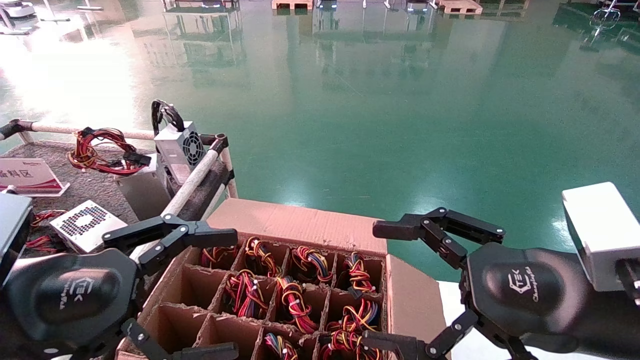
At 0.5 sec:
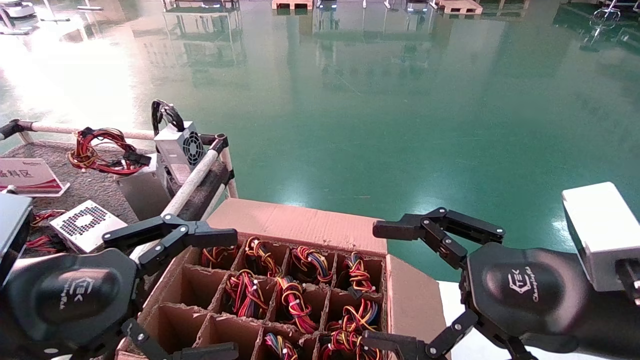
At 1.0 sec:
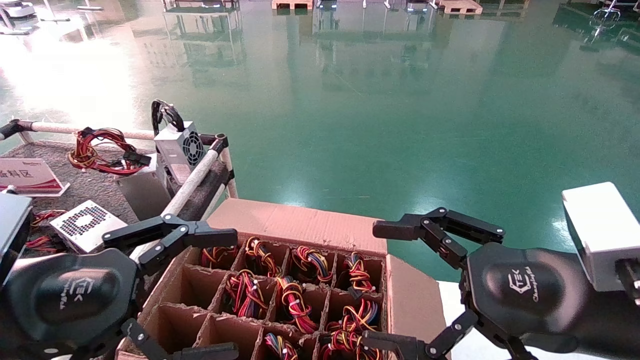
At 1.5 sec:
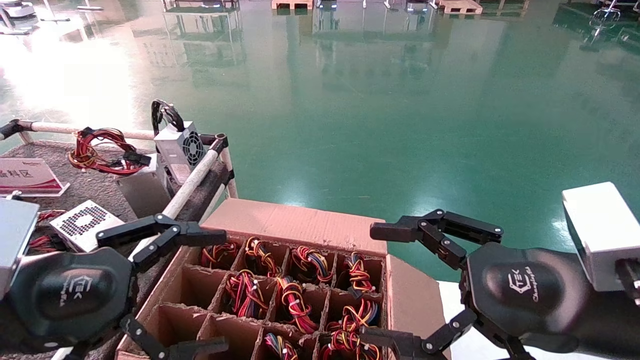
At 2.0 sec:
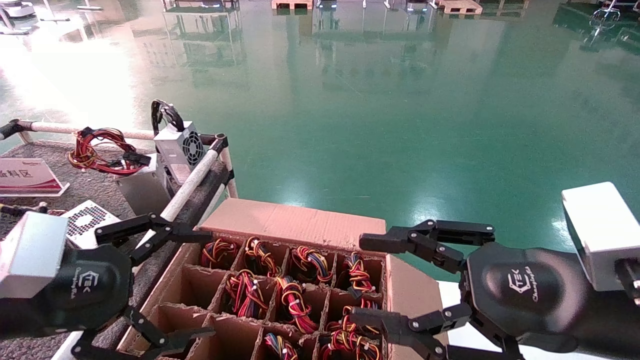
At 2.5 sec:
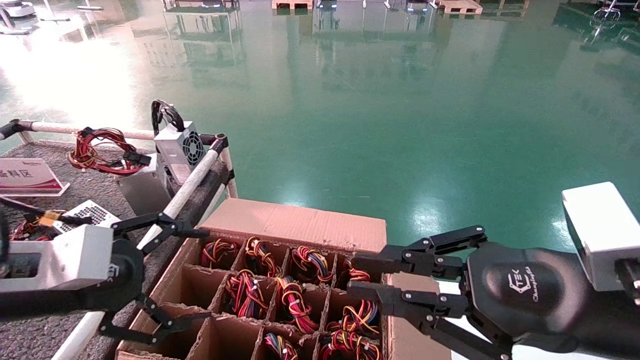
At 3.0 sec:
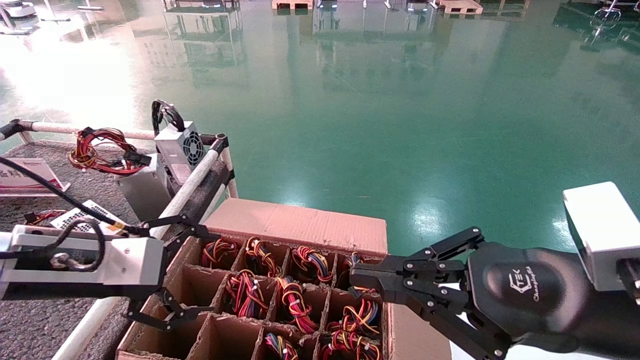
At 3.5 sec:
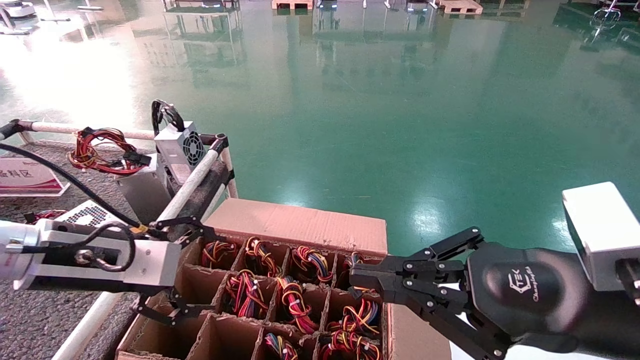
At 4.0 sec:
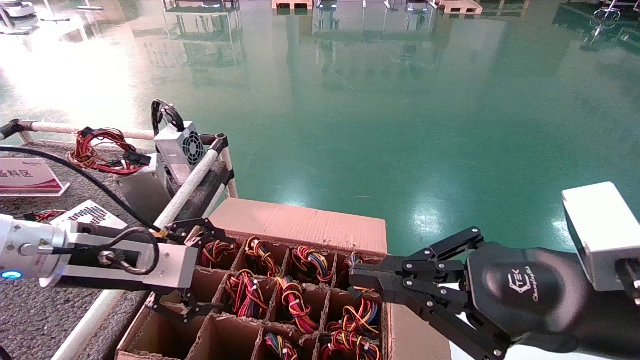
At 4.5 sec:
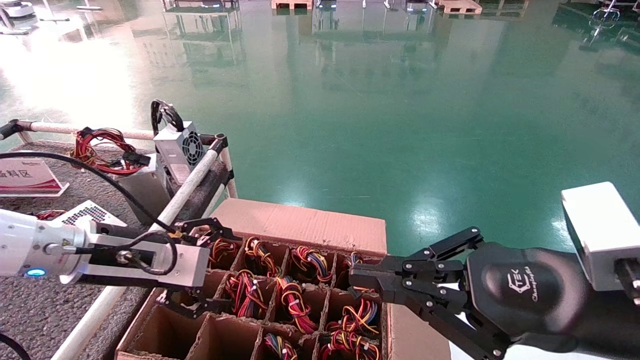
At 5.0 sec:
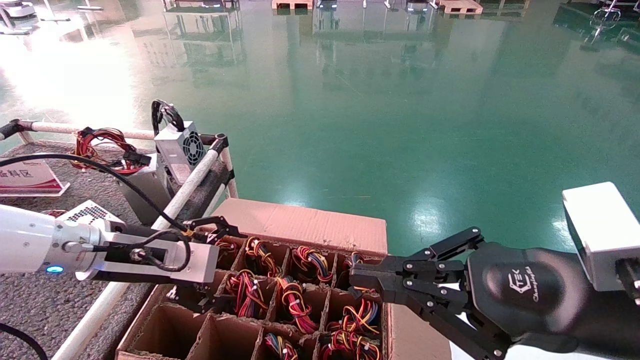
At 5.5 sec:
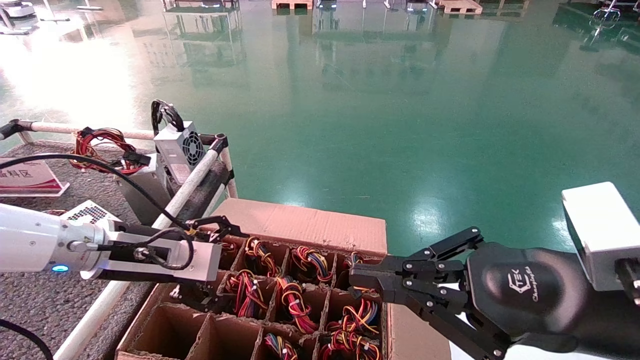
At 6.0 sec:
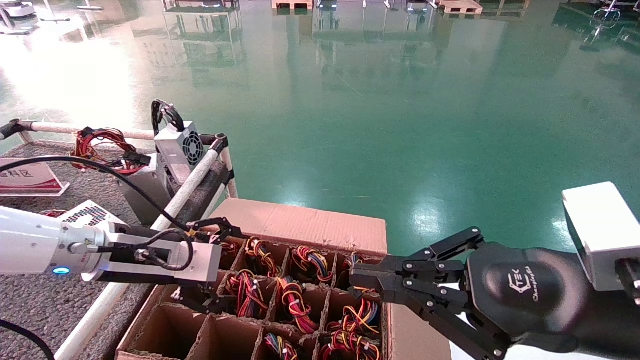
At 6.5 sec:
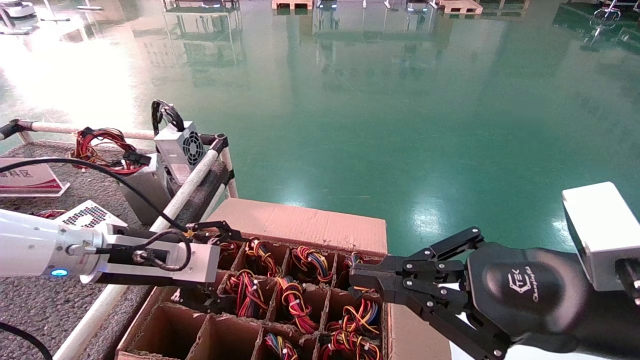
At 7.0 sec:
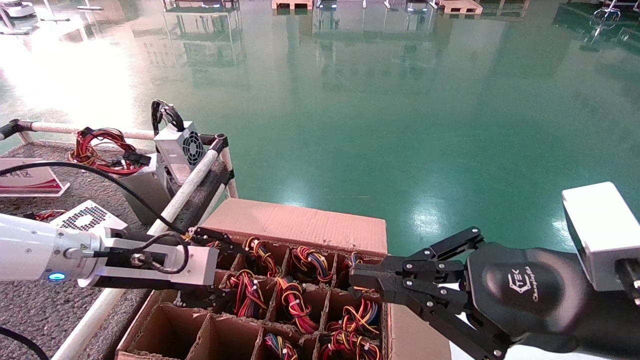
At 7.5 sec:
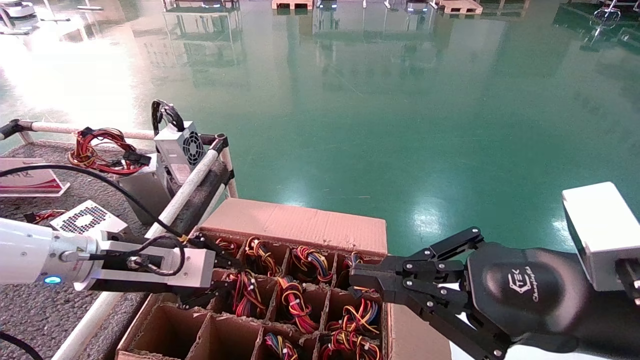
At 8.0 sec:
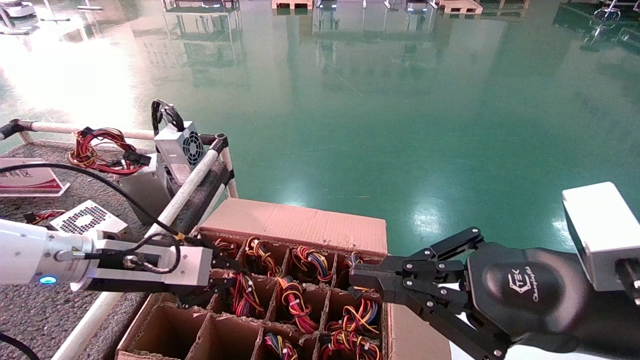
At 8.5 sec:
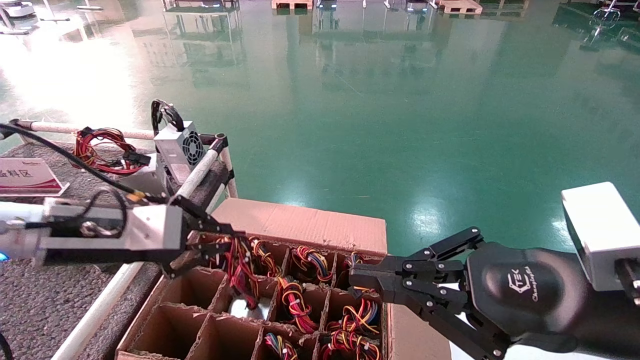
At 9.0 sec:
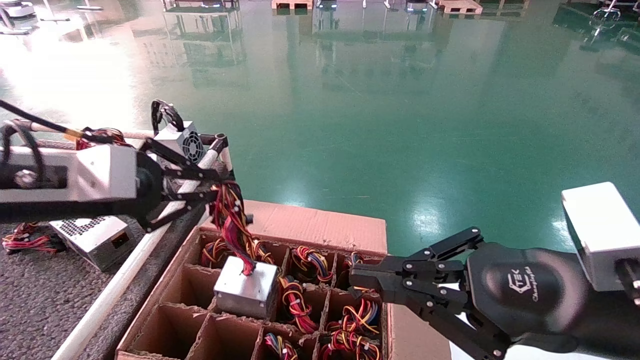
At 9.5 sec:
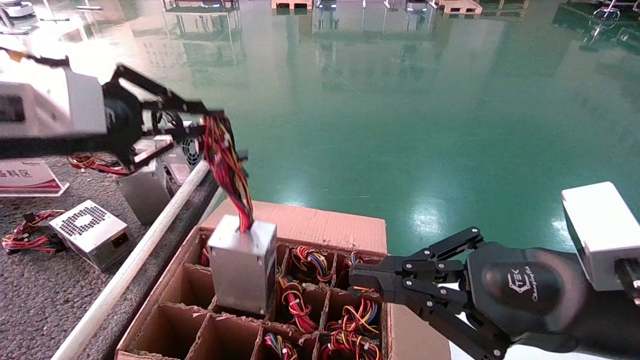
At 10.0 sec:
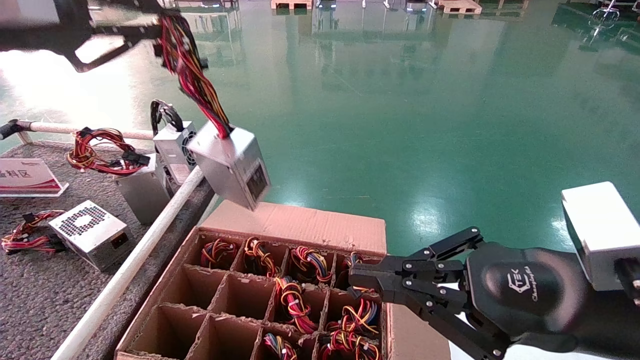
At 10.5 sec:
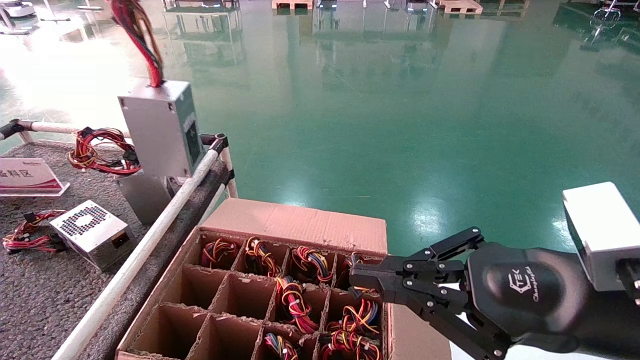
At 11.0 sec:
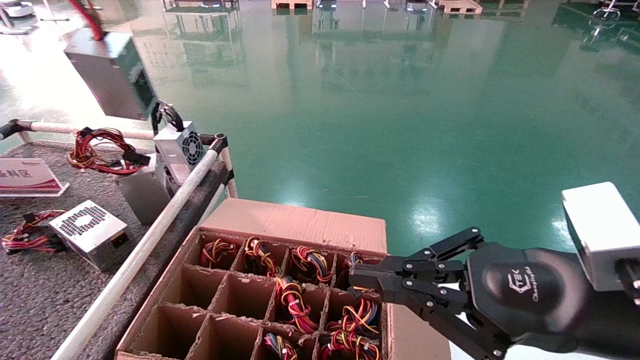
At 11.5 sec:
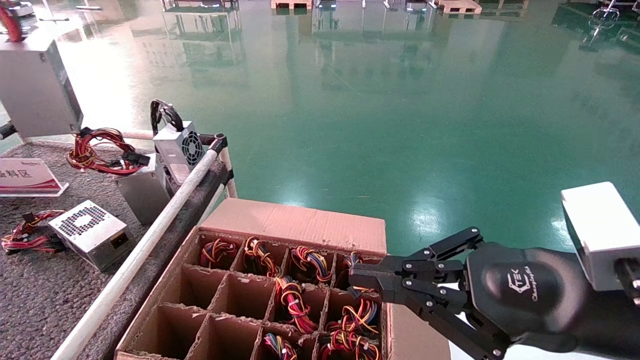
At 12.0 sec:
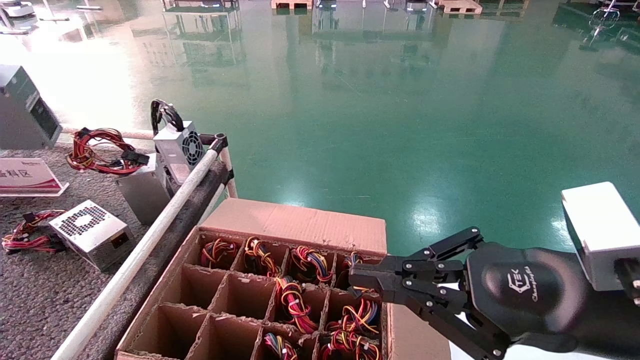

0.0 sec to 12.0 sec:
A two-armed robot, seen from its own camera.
Step, 2.0 sec to 7.5 sec: Grab and lift the power supply from the large box.
0.0 sec to 2.0 sec: The grippers make only small movements.
2.0 sec to 4.0 sec: The left gripper shifts roughly 10 cm forward, while the right gripper closes.
4.0 sec to 6.0 sec: There are only small adjustments of the grippers.
6.0 sec to 8.0 sec: The left gripper closes.
8.0 sec to 10.0 sec: The left gripper goes approximately 25 cm upward.
10.0 sec to 12.0 sec: The left gripper heads to the left, covering roughly 20 cm.

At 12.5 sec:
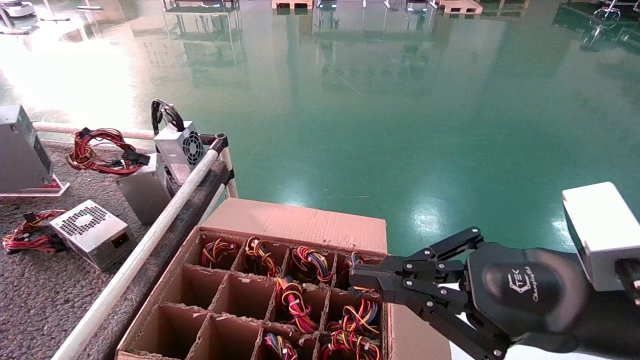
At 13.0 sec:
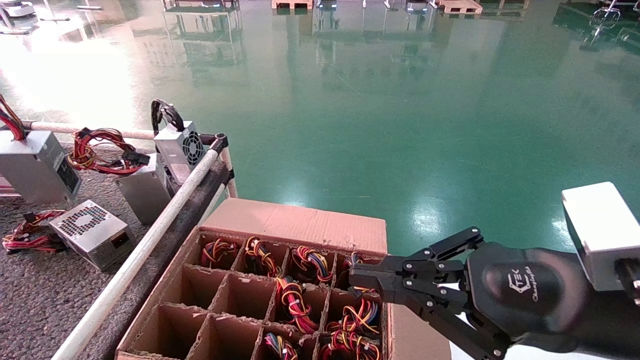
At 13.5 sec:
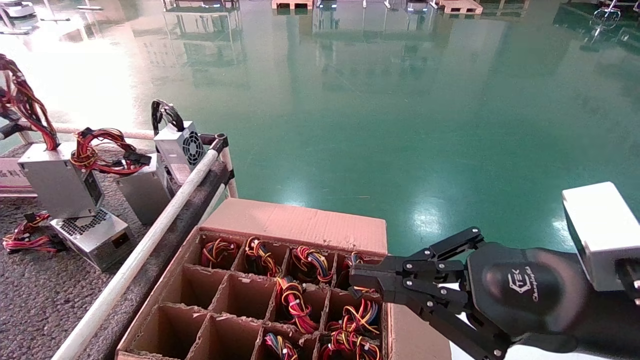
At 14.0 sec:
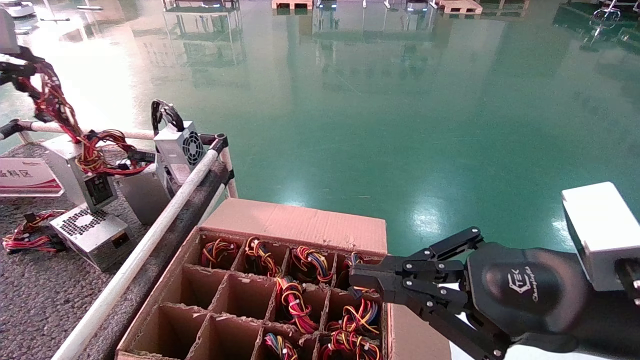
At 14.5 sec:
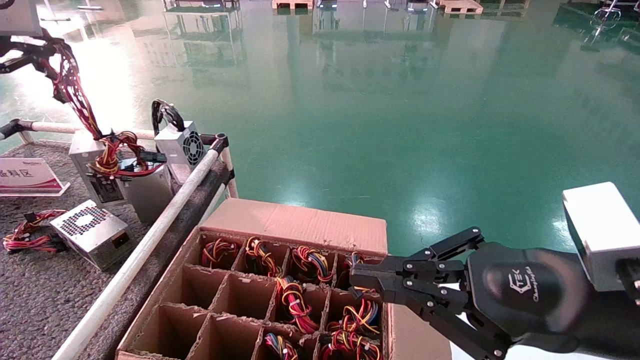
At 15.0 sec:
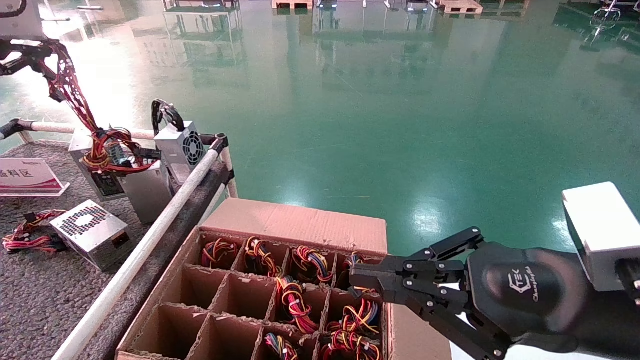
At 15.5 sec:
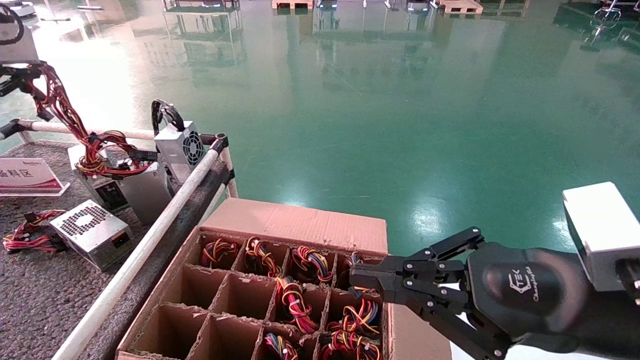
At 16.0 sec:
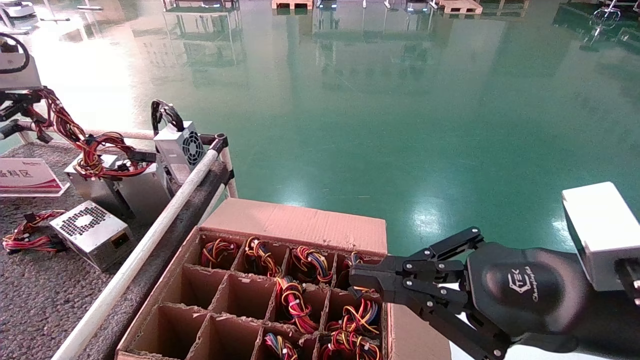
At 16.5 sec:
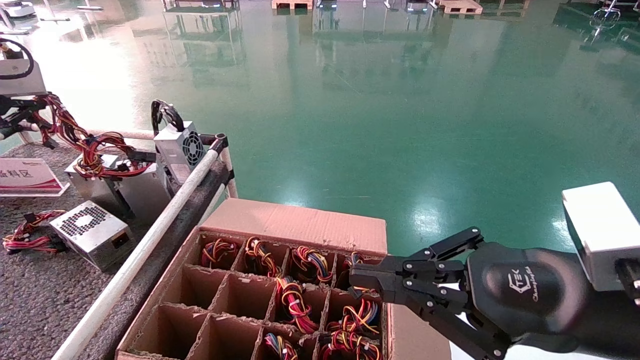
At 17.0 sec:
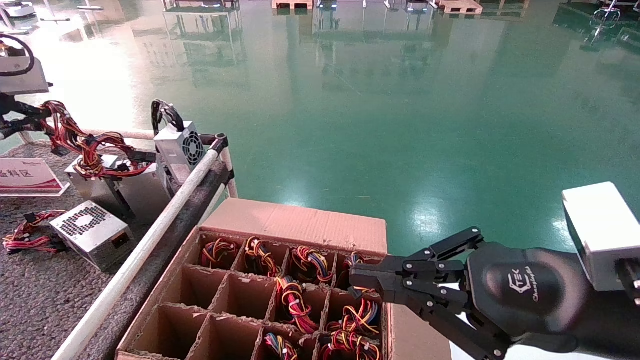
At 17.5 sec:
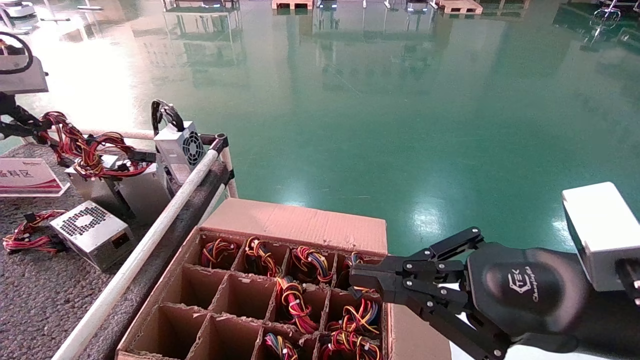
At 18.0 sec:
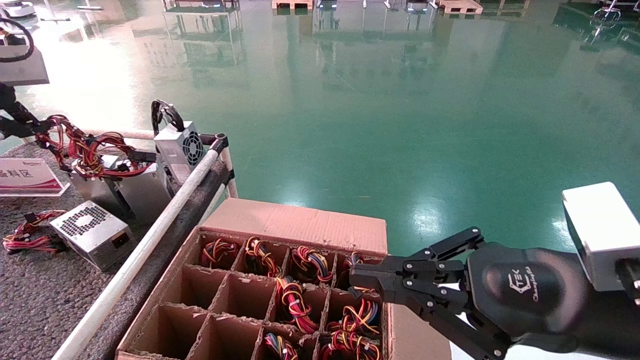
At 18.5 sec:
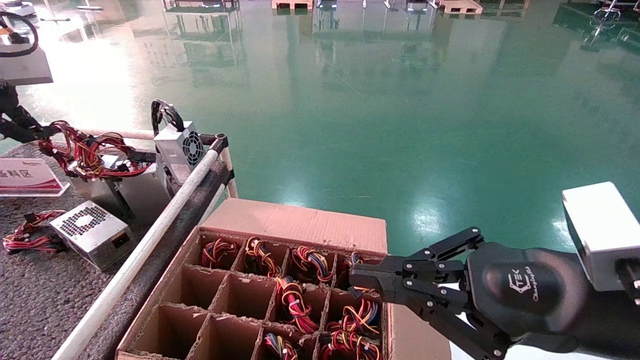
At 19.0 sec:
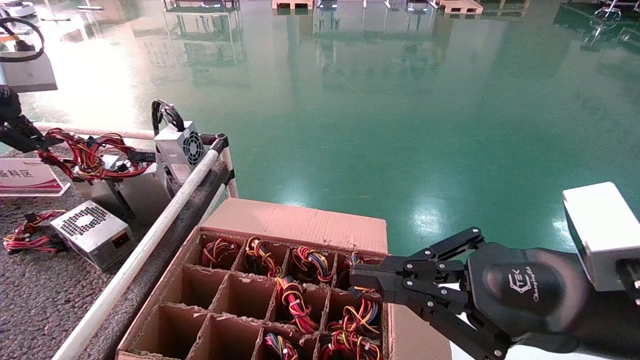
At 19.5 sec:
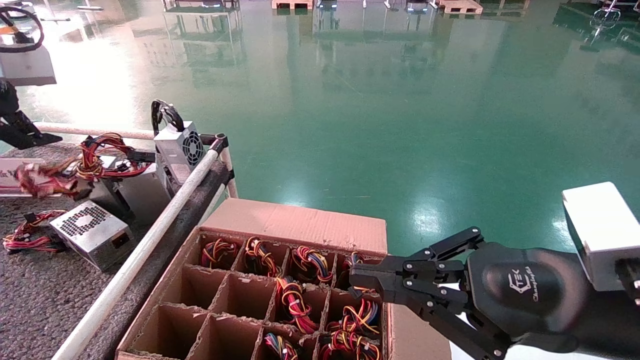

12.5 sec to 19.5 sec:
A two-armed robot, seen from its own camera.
Step, 12.5 sec to 17.0 sec: Place the power supply on the operating table.
12.5 sec to 14.5 sec: The left gripper travels to the right and forward by roughly 10 cm.
14.5 sec to 16.0 sec: The left gripper travels downward by about 5 cm.
16.0 sec to 17.5 sec: The left gripper opens its fingers.
17.5 sec to 19.5 sec: The left gripper opens its fingers.
